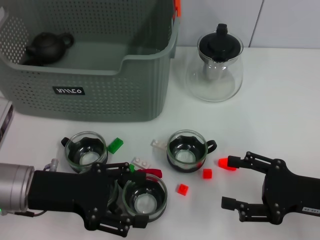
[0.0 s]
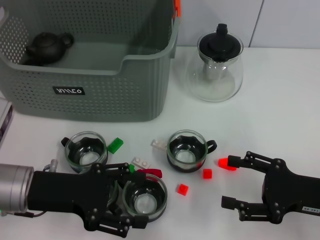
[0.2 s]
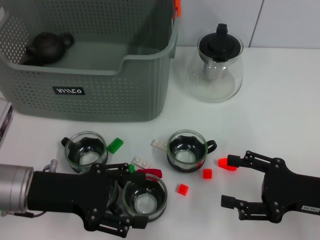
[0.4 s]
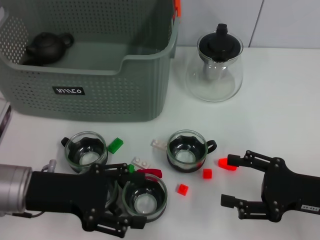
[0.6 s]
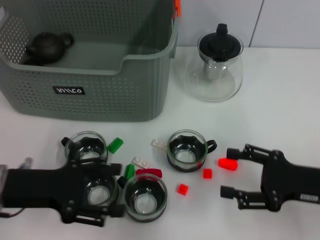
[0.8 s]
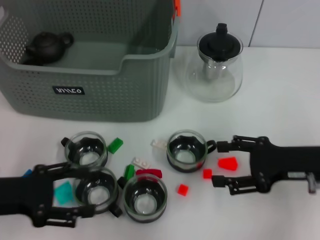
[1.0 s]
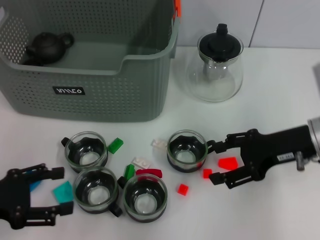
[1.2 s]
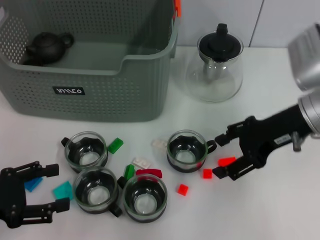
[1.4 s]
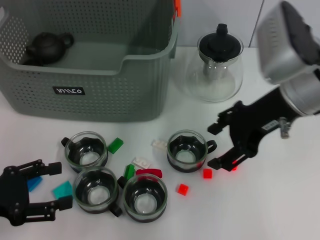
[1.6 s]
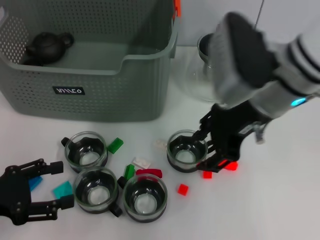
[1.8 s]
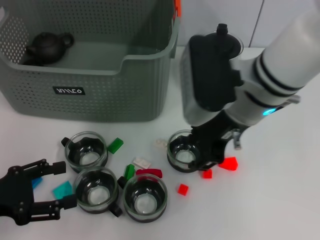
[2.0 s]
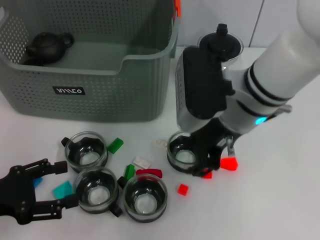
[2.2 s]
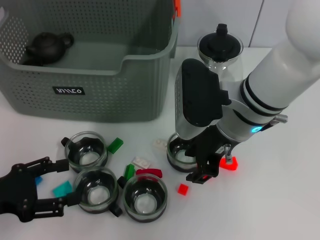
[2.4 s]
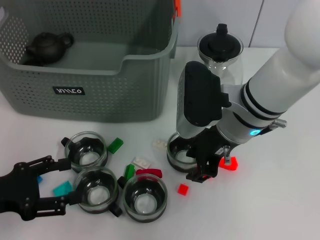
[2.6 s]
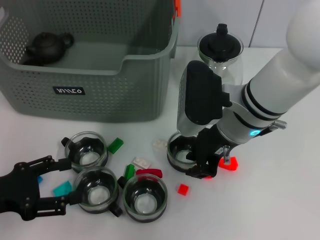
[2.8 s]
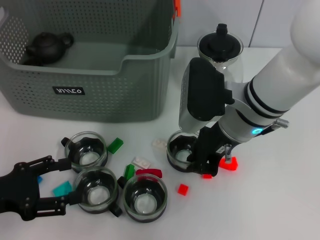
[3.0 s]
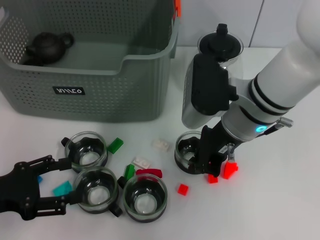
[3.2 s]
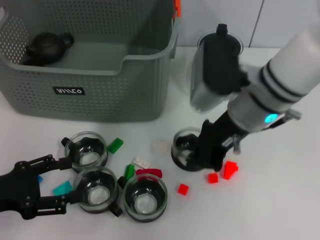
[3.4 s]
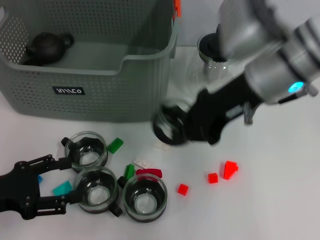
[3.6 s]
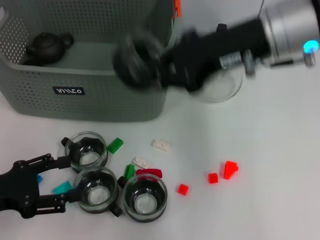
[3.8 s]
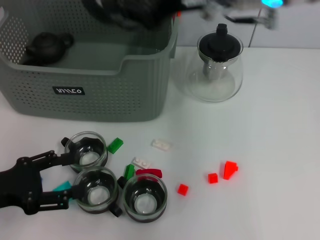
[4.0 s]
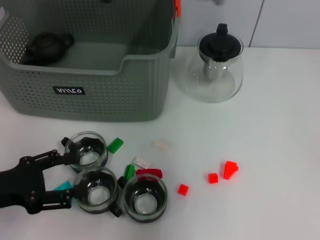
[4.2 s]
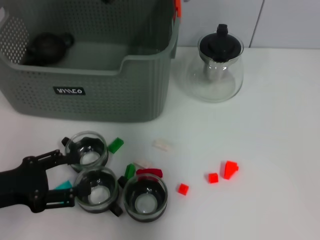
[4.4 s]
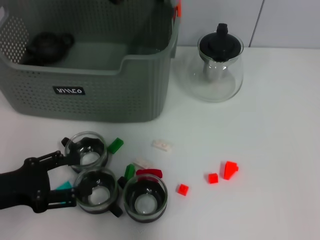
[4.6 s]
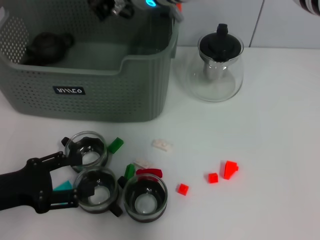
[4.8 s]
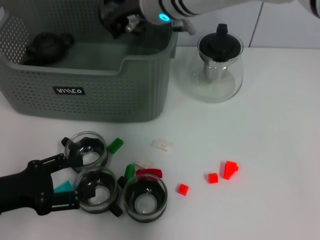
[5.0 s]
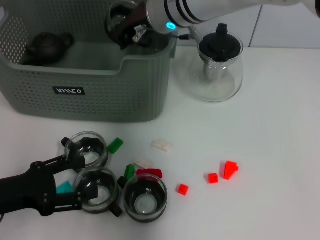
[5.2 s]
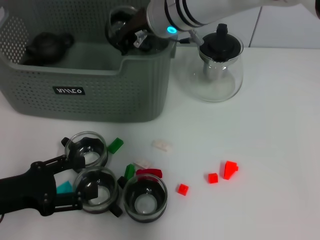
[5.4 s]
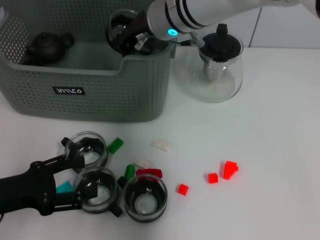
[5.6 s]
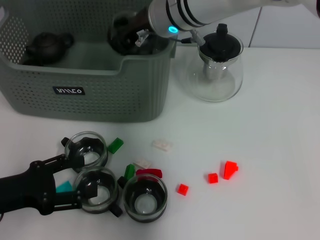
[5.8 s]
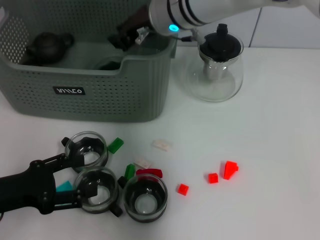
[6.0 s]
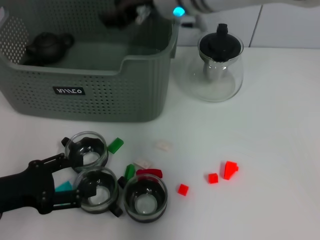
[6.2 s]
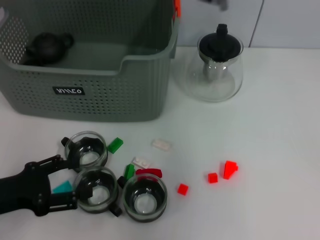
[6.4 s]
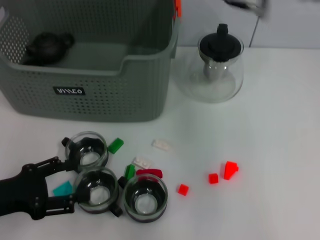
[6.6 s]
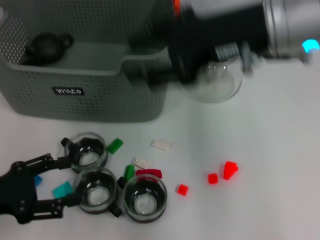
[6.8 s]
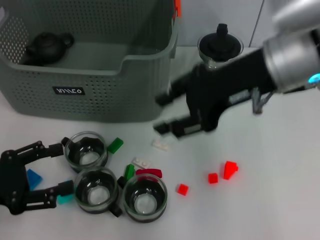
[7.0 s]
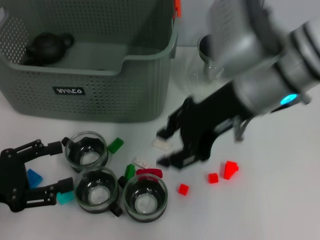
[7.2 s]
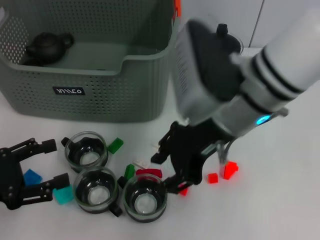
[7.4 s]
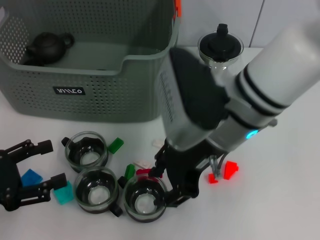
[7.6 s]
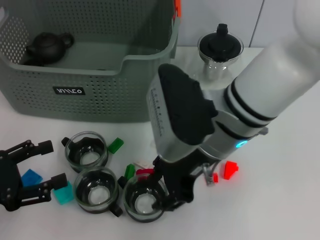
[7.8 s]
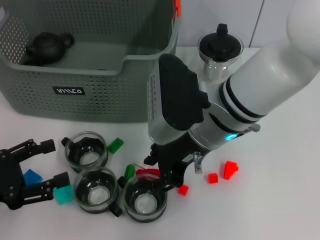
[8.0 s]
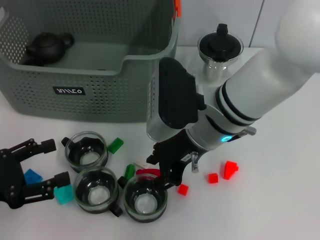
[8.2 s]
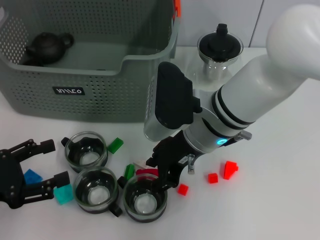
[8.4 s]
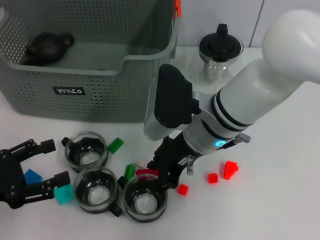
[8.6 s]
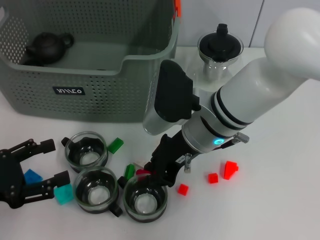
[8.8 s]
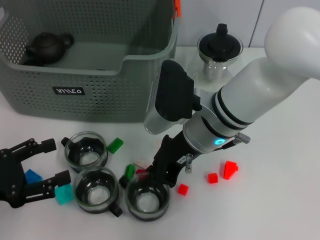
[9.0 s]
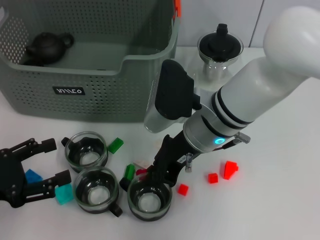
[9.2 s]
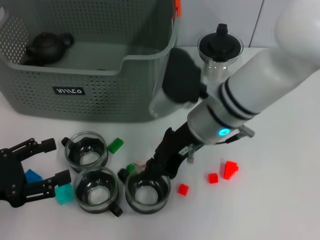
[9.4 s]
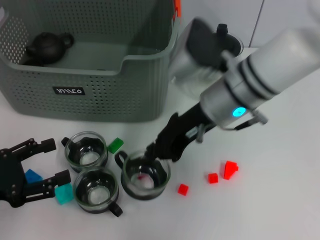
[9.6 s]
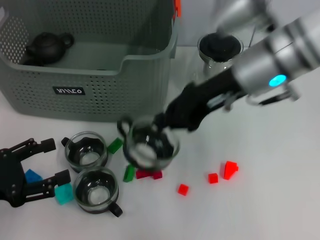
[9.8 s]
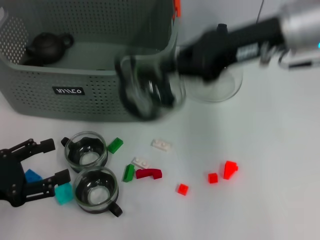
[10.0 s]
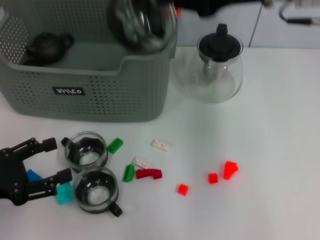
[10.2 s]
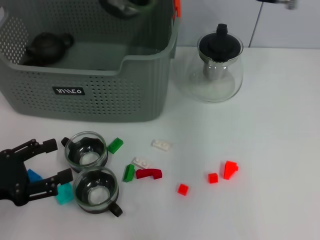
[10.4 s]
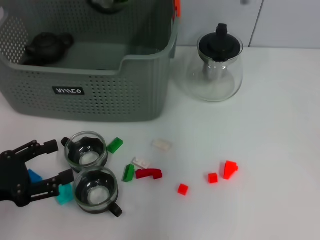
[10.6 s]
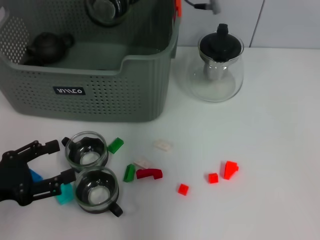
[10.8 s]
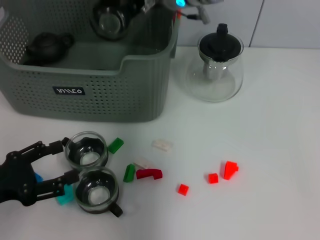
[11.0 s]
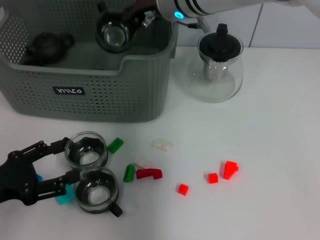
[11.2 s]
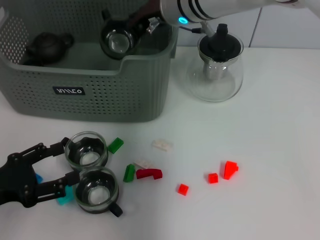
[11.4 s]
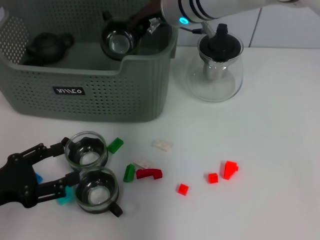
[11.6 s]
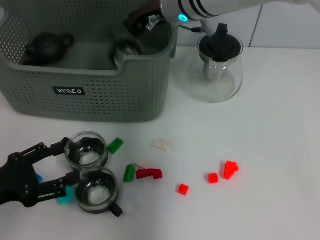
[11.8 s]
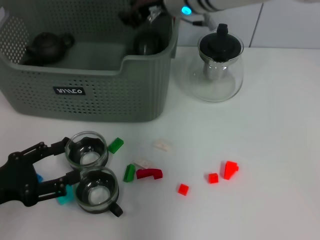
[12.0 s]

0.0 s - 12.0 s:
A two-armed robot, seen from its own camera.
Task of the whole recording: pick up the teacup on the table and place it into the storage bin, pick up the block on the table and place it into the storage bin.
Step, 0.0 s - 3.0 s: Grasp the cup with right gripper.
Step, 3.2 s - 6.0 s: Place the cup in the storage box with right gripper.
Step, 6.2 s - 9.0 s: Grasp the cup with right gripper.
0.0 s - 1.6 s: The left gripper is displaced to the left and backward by approximately 10 cm. Meanwhile the right gripper moves upward, forward and to the left, roughly 20 cm.
1.6 s - 3.0 s: The right gripper moves to the left and downward, approximately 10 cm, and closes up.
3.0 s - 4.4 s: The right gripper moves upward, forward and to the left, approximately 20 cm.
4.4 s - 6.0 s: The right gripper moves downward, some 5 cm.
6.0 s - 7.6 s: The right gripper is displaced backward by about 15 cm, and opens its fingers.
7.6 s - 9.0 s: The right gripper goes some 5 cm downward, and closes its fingers.
9.0 s - 10.4 s: The right gripper heads upward, to the right and forward, covering roughly 20 cm.
10.4 s - 12.0 s: The right gripper goes roughly 15 cm to the left, downward and forward.

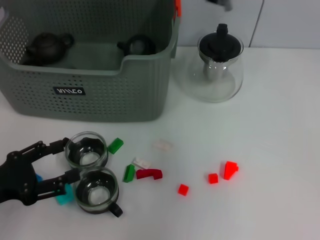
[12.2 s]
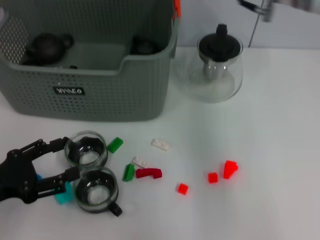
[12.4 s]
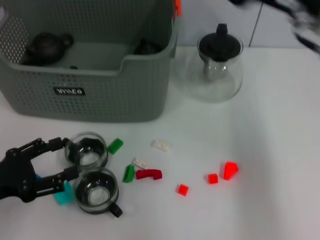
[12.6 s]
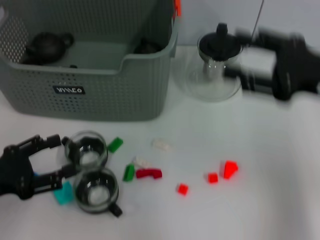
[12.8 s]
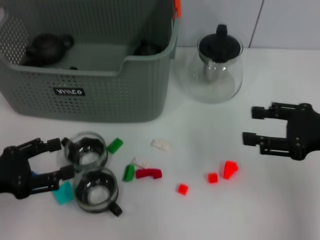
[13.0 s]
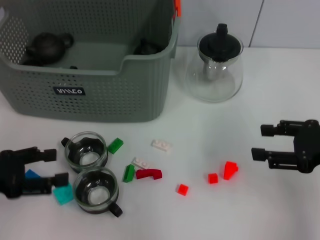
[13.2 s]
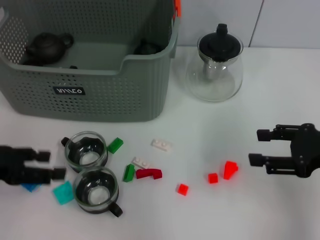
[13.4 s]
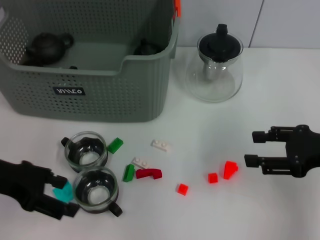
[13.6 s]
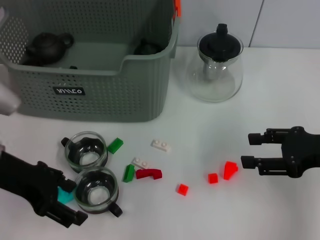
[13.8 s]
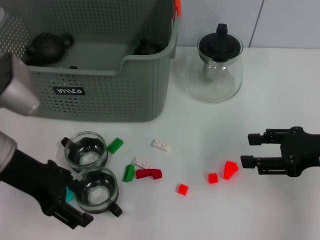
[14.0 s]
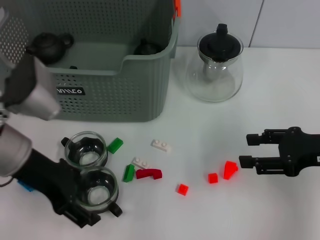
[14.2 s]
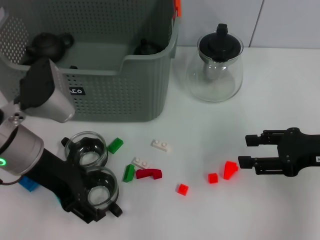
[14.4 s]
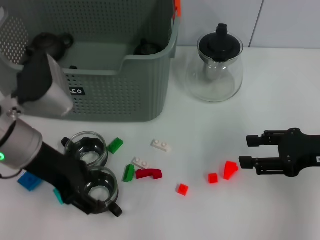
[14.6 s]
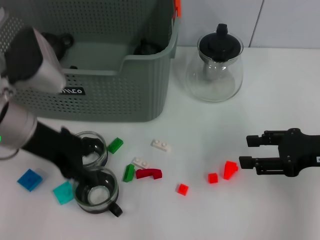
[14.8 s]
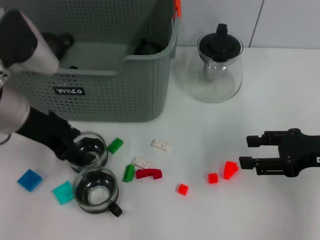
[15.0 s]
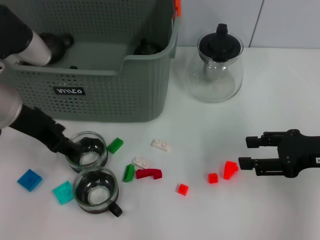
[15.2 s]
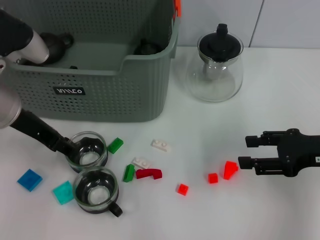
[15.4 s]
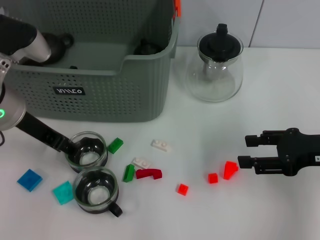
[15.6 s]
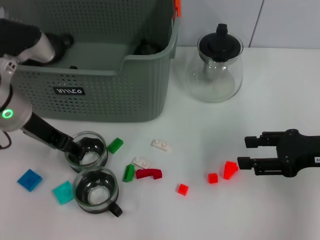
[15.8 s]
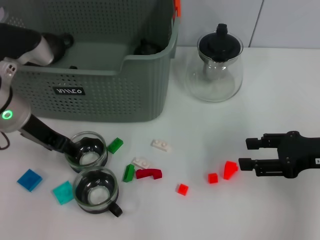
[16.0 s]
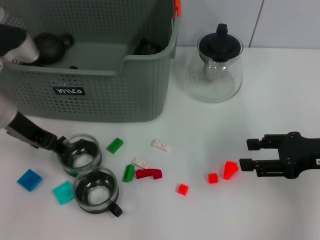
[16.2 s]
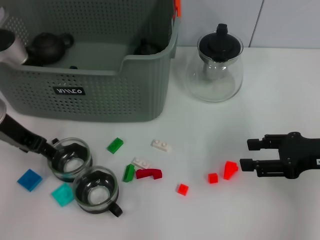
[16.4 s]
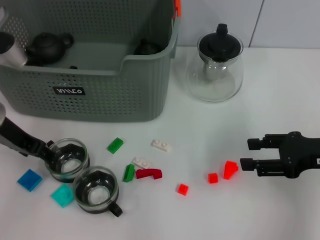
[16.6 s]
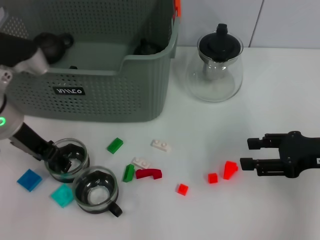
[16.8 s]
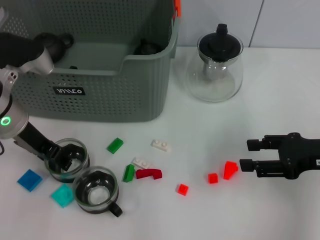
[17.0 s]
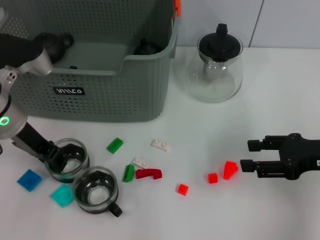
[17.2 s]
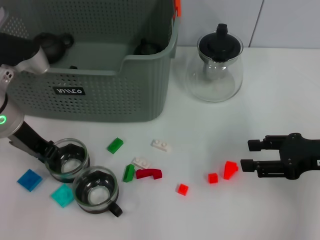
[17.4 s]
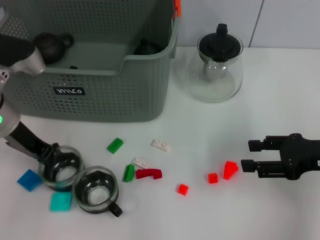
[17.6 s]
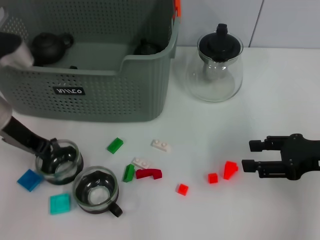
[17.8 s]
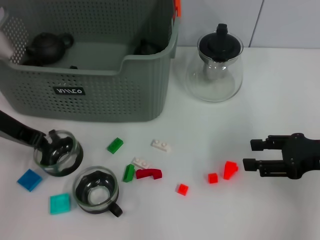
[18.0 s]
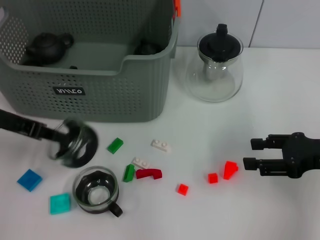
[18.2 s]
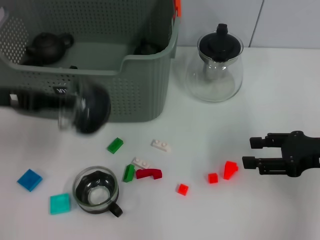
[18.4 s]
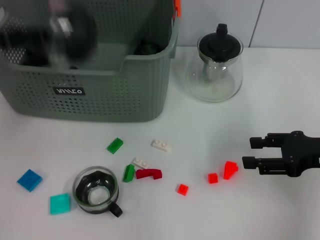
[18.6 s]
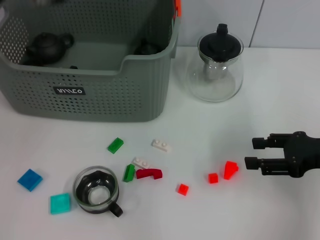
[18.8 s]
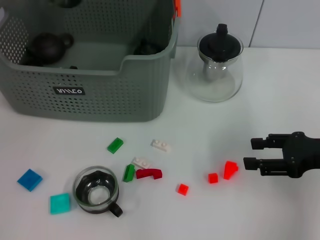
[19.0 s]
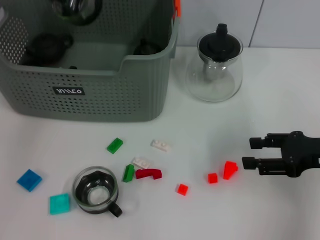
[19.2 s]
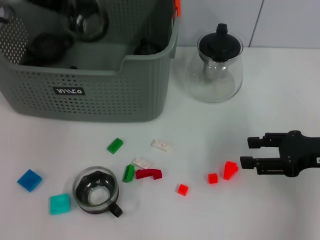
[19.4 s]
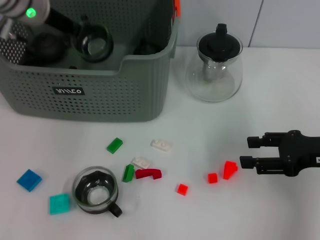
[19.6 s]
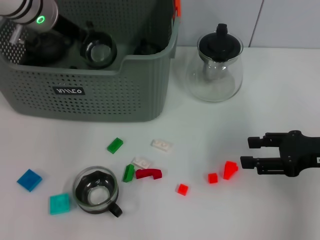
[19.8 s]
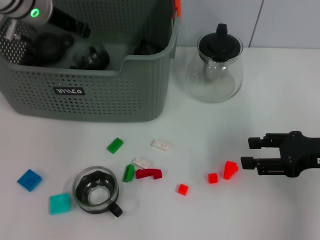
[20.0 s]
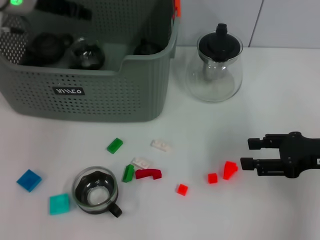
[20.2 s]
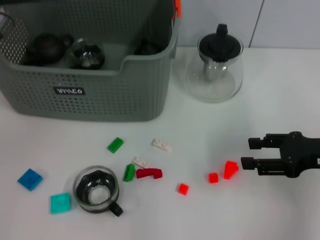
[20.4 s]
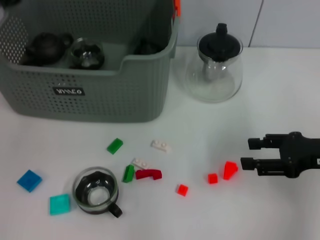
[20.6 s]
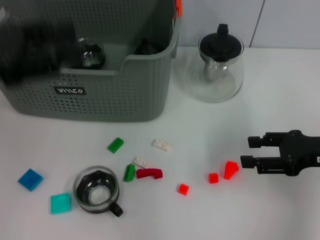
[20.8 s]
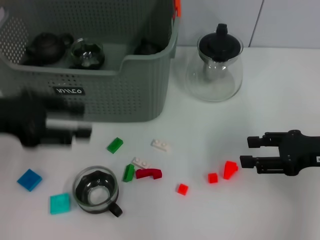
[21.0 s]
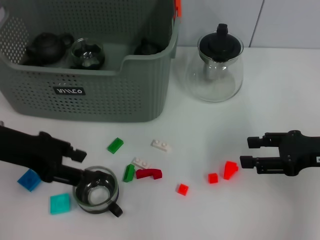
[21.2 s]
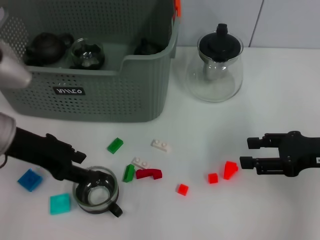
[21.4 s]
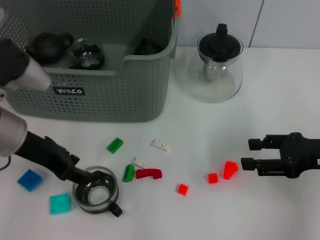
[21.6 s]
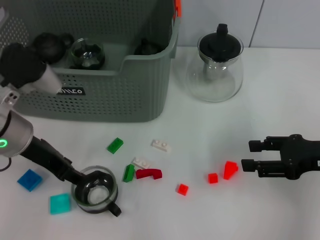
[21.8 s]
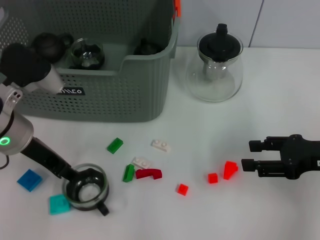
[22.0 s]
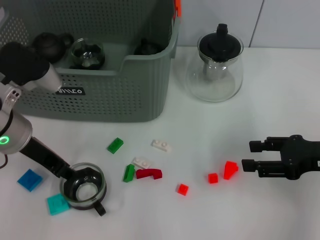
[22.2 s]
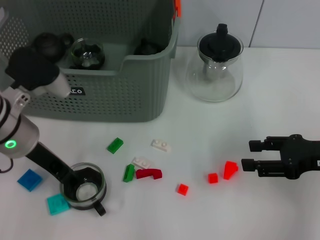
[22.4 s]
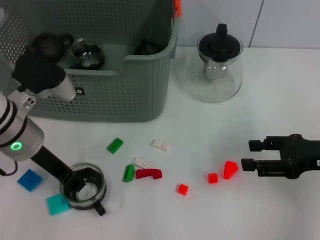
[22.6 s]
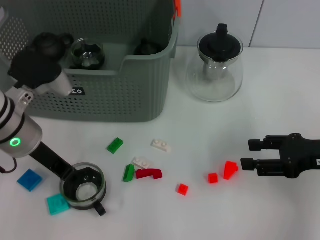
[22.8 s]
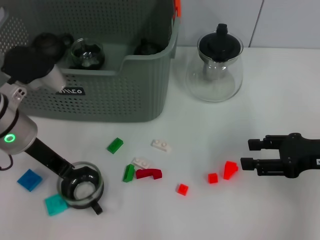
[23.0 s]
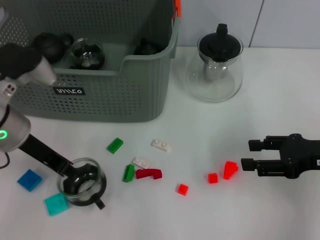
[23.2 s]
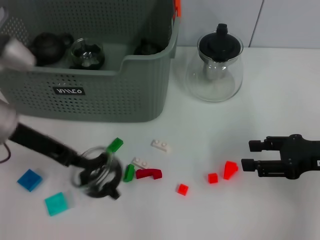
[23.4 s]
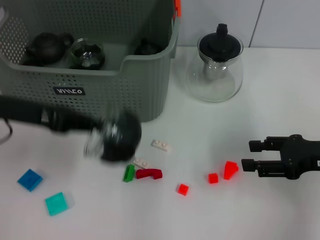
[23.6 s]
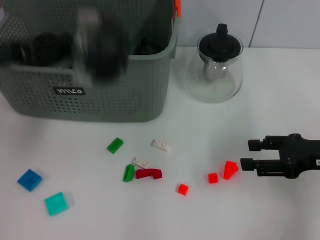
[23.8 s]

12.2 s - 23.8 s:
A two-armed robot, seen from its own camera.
Task of the whole recording: pick up the teacup on the table and place it into the storage bin, pick up the block on the table and place it into the storage bin.
Step, 12.2 s - 16.4 s: Grasp the cup with left gripper.
Step, 16.6 s - 20.8 s: Place the cup in the storage box with left gripper.
Step, 21.0 s - 22.8 s: Grasp the cup with left gripper.
12.2 s - 13.6 s: The left gripper shifts roughly 10 cm upward and forward. Meanwhile the right gripper is displaced to the right, backward and downward by approximately 30 cm, and opens.
13.6 s - 15.0 s: The left gripper travels to the right and forward by approximately 10 cm.
15.0 s - 16.6 s: The left gripper shifts by about 5 cm.
16.6 s - 18.0 s: The left gripper closes.
18.0 s - 19.4 s: The left gripper travels forward and upward by some 15 cm.
19.4 s - 21.0 s: The left gripper goes about 15 cm backward, and opens up.
21.0 s - 22.4 s: The left gripper shifts about 10 cm to the right and downward.
22.4 s - 23.8 s: The left gripper goes roughly 10 cm to the left and upward, and closes up.
